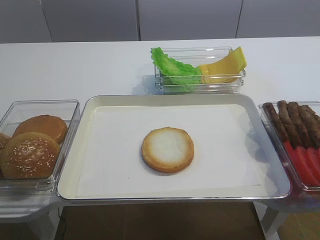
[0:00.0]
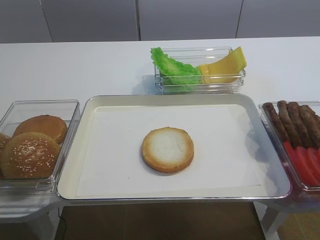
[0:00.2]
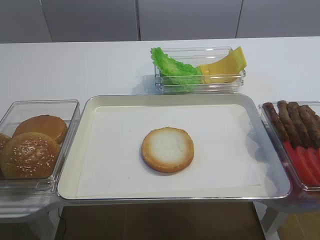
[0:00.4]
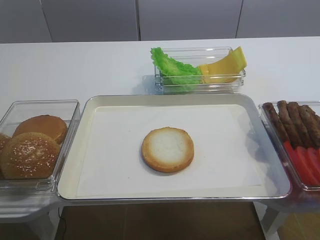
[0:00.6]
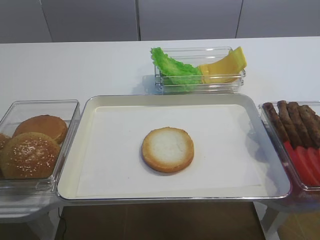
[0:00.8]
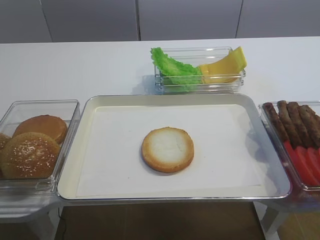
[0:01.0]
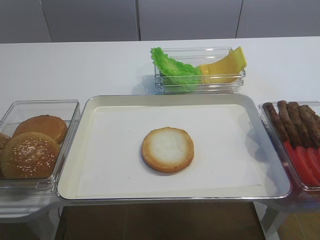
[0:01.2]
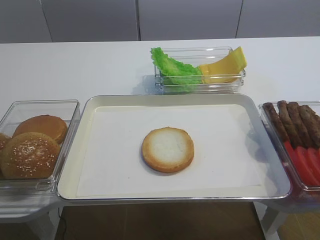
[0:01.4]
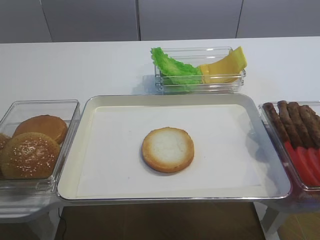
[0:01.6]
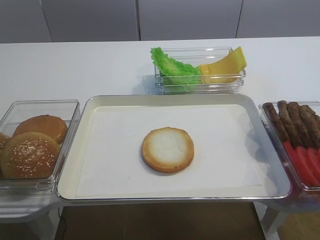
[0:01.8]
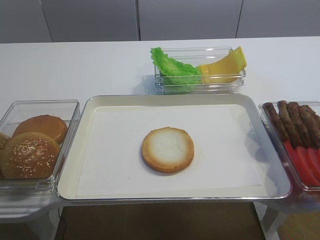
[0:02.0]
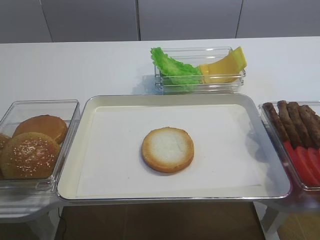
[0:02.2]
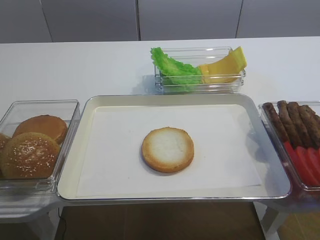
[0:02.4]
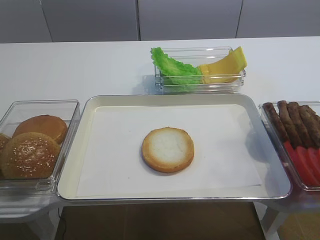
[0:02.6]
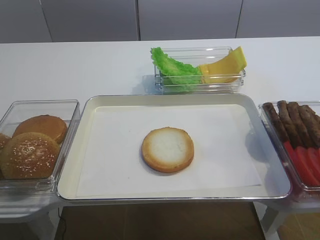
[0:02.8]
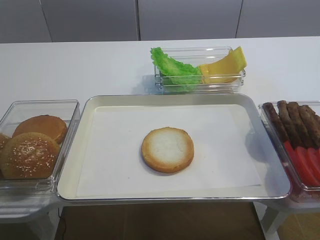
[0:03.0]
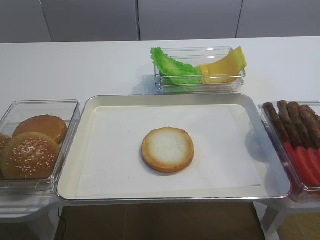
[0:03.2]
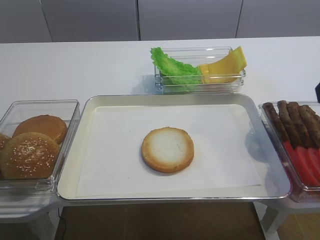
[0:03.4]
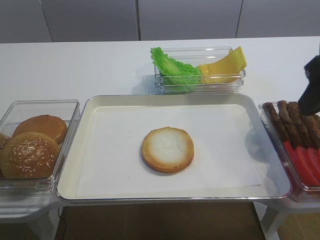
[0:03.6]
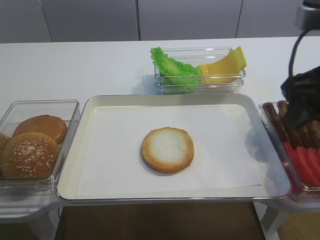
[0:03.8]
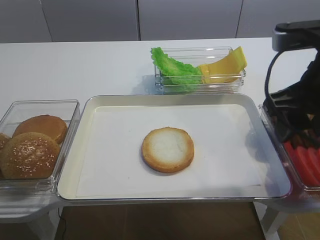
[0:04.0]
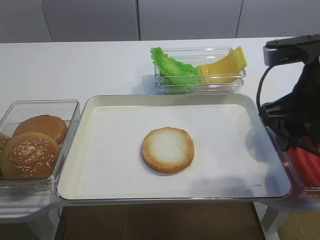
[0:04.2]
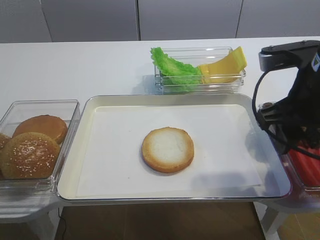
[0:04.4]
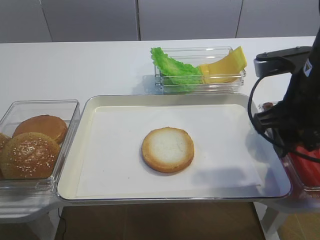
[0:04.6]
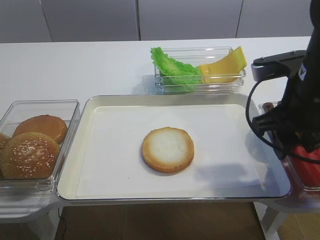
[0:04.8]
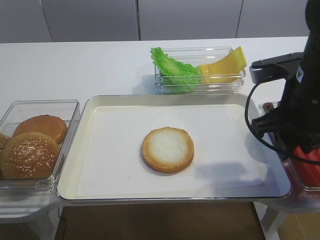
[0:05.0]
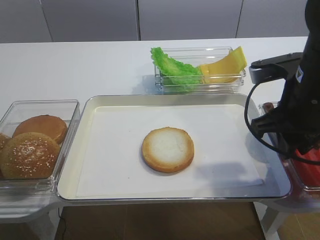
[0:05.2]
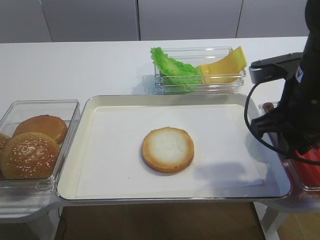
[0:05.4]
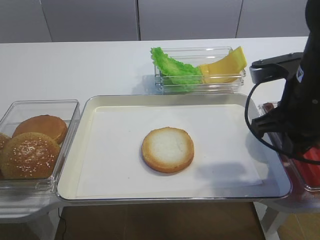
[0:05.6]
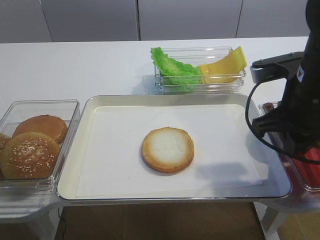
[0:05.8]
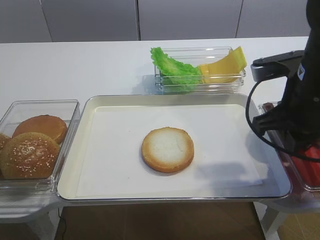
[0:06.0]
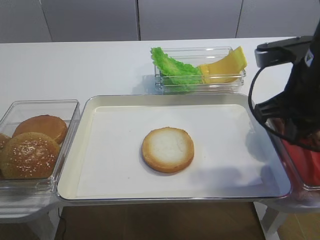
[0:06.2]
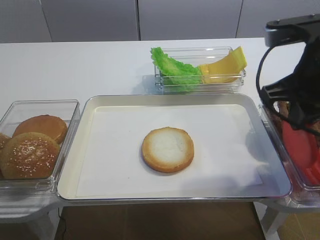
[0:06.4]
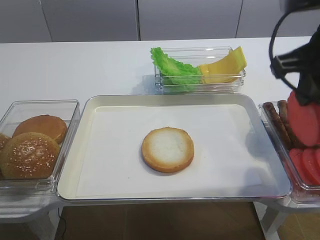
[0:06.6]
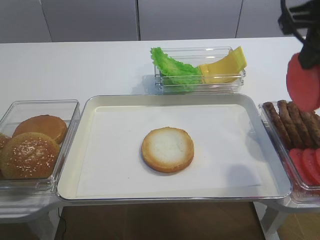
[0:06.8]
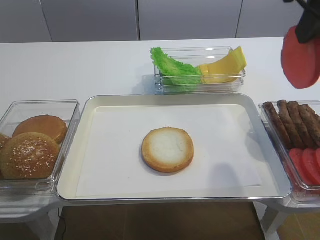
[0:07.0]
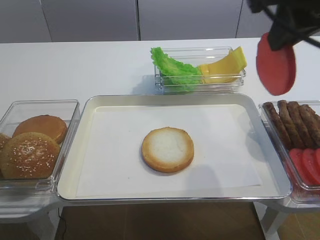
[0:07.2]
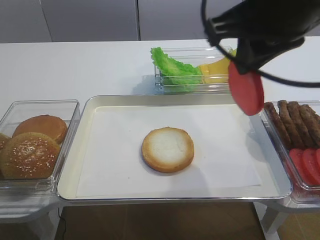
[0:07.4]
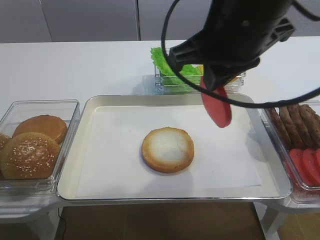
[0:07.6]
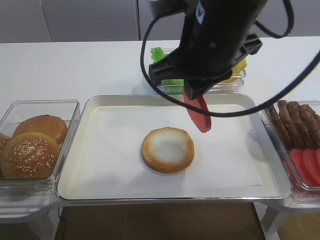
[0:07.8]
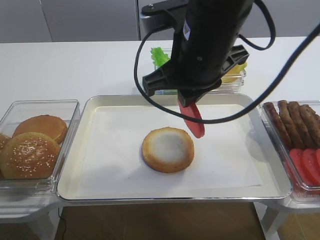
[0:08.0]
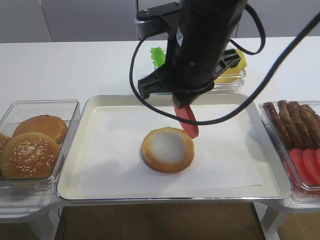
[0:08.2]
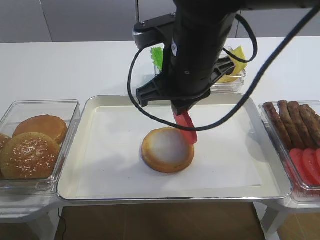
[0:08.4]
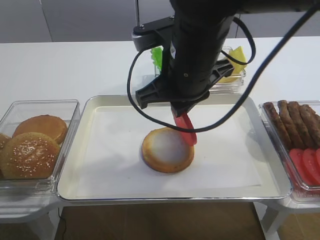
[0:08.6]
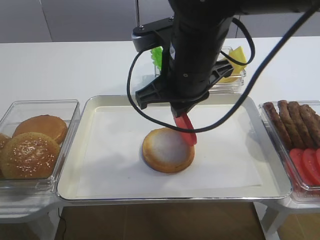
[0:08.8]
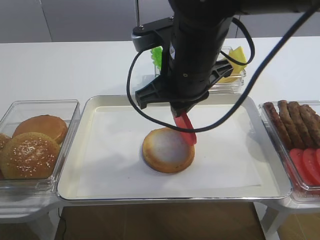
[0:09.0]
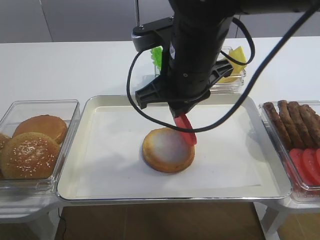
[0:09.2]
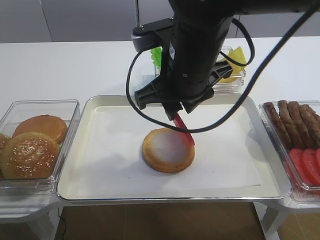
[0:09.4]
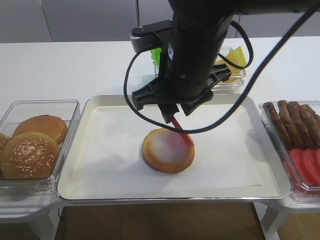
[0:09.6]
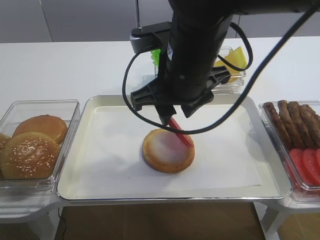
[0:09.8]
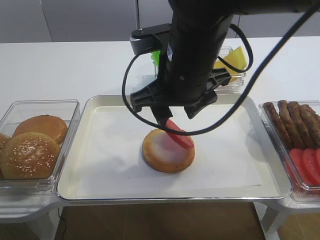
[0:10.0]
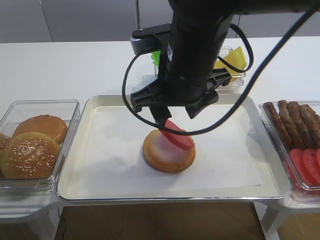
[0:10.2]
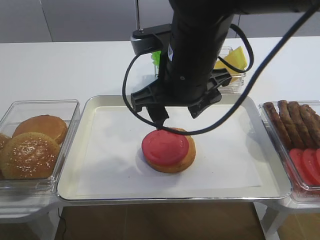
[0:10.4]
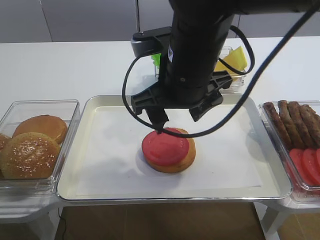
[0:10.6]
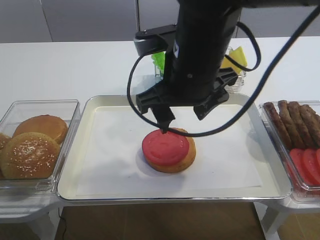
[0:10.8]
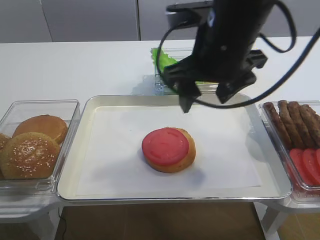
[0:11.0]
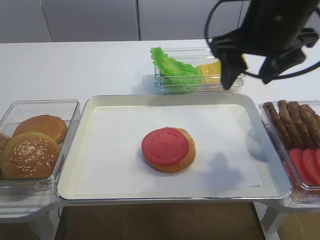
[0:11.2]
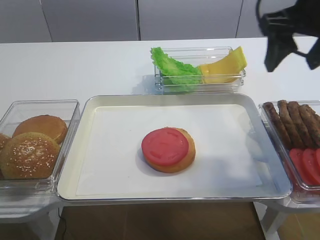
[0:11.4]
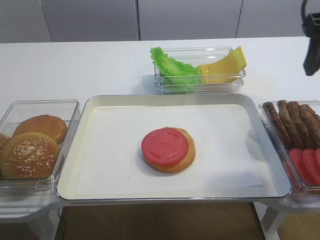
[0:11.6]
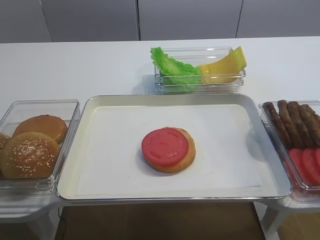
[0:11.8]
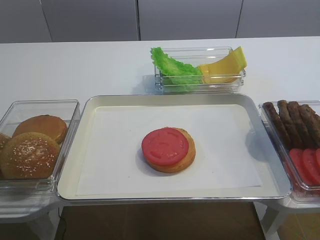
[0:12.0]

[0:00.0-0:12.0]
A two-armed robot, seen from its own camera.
Step, 0:00.0 to 0:06.4: Pick up the tomato slice with the right gripper.
Step, 0:06.6 to 0:10.4: Place the tomato slice on the bread slice with the right gripper.
0:01.6 to 0:03.0: The right gripper heads forward and upward, covering roughly 15 cm.
0:03.0 to 0:04.4: The right gripper is displaced downward, forward and to the left by roughly 15 cm.
0:04.4 to 0:06.0: The right gripper closes up.
0:06.0 to 0:07.6: The right gripper moves upward and to the left, about 15 cm.
0:07.6 to 0:09.0: The right gripper shifts approximately 5 cm downward.
0:09.0 to 0:10.4: The right gripper opens up.
0:10.4 to 0:12.0: The right gripper is displaced to the right, backward and upward by roughly 25 cm.

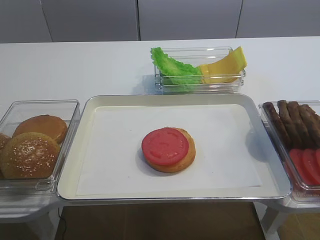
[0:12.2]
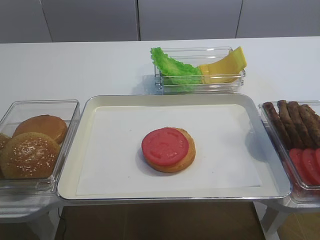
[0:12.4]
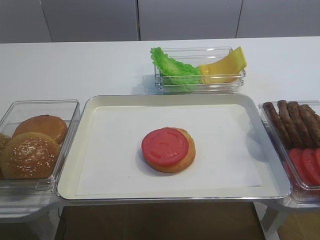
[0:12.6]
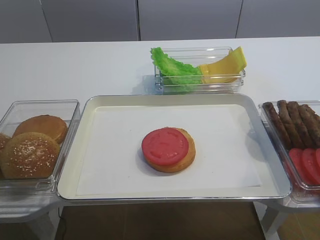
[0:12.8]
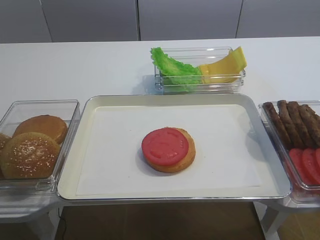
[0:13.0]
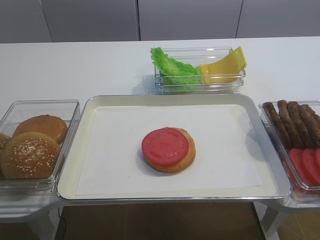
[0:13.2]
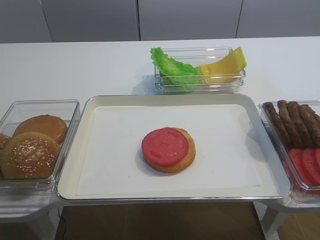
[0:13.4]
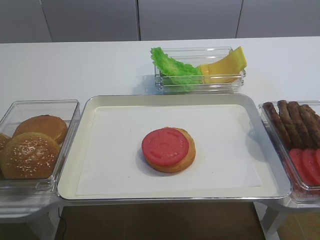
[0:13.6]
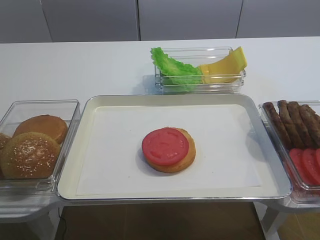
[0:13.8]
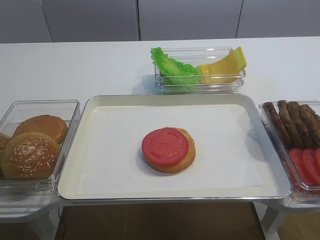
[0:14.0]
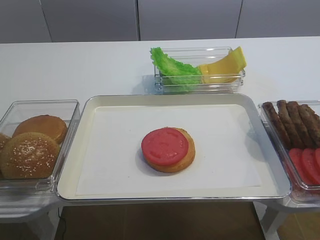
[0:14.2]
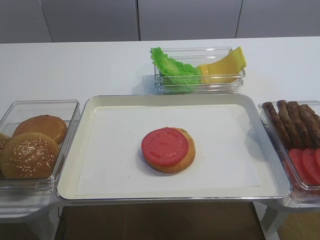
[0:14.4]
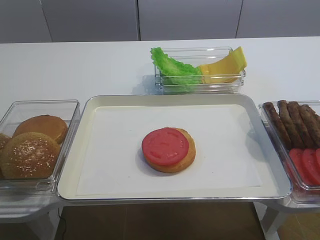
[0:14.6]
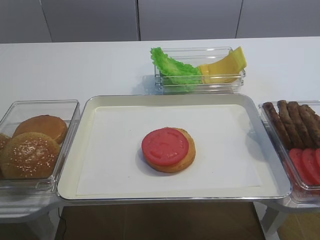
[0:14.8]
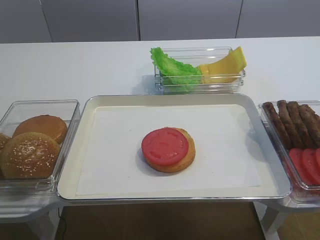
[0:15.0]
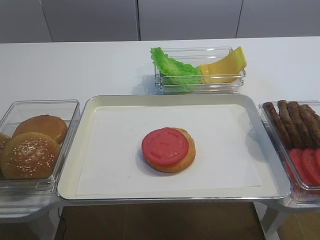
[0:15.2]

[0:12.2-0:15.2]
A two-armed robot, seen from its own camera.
0:13.8 to 0:15.2: Both grippers stay put.

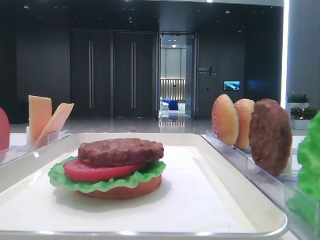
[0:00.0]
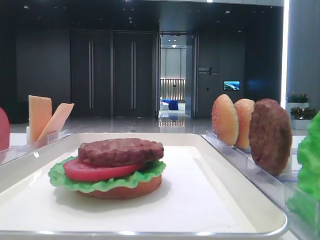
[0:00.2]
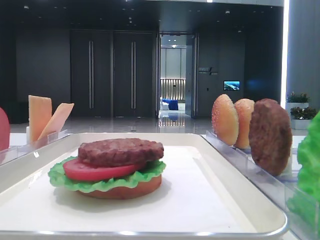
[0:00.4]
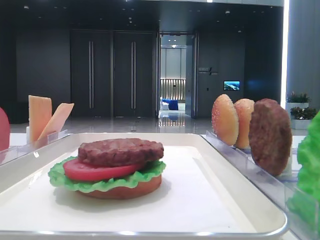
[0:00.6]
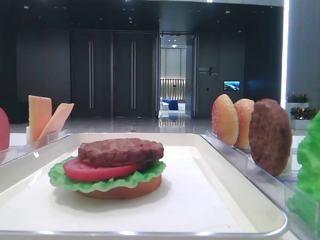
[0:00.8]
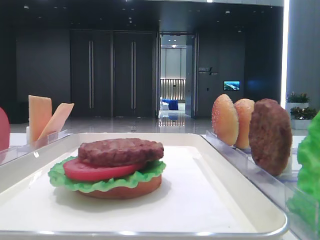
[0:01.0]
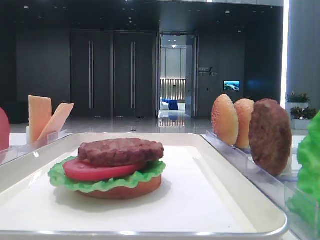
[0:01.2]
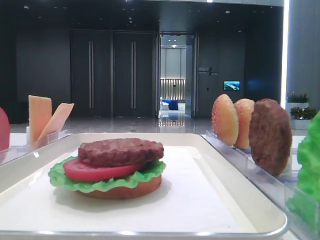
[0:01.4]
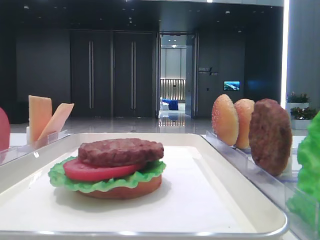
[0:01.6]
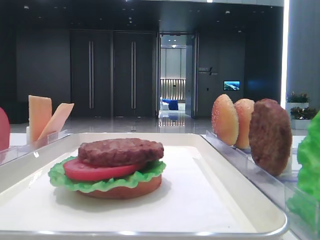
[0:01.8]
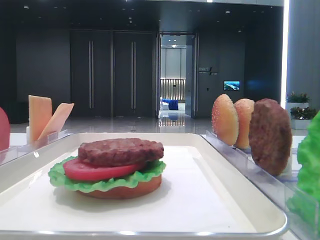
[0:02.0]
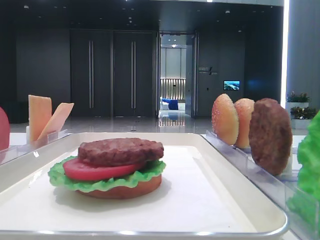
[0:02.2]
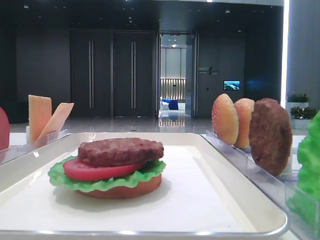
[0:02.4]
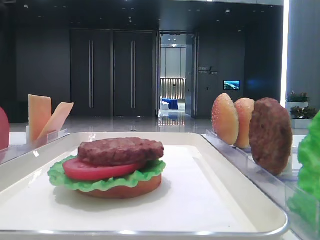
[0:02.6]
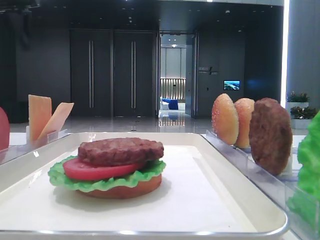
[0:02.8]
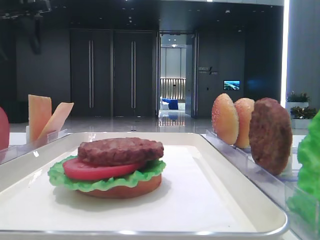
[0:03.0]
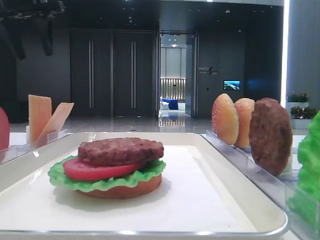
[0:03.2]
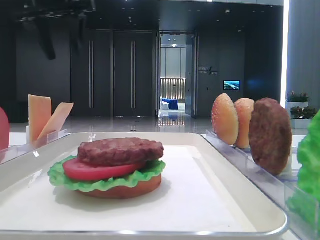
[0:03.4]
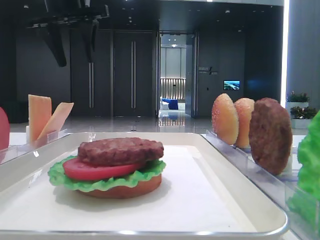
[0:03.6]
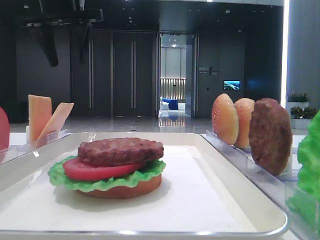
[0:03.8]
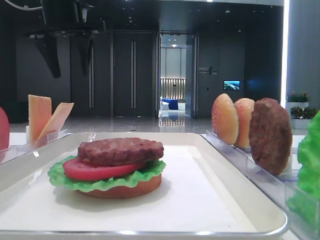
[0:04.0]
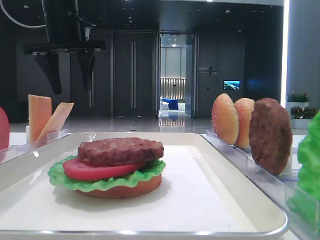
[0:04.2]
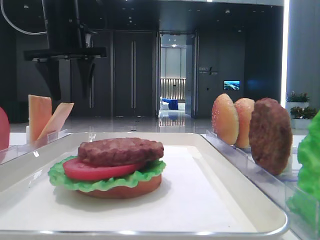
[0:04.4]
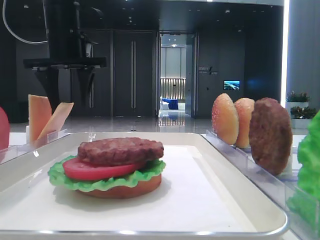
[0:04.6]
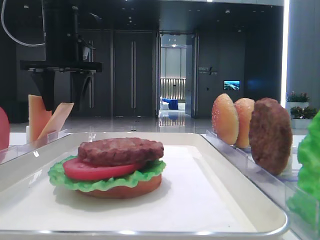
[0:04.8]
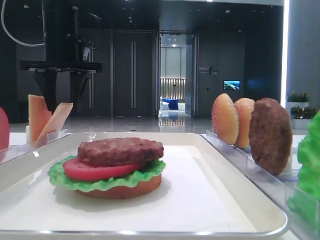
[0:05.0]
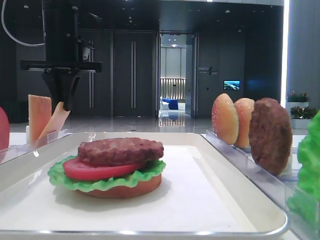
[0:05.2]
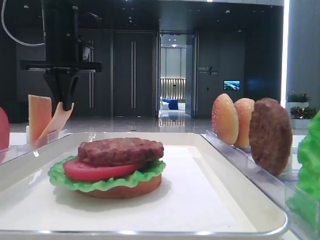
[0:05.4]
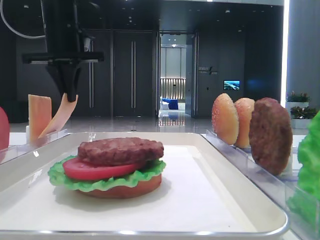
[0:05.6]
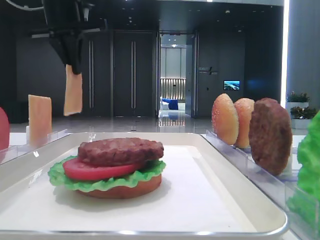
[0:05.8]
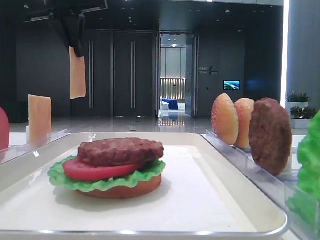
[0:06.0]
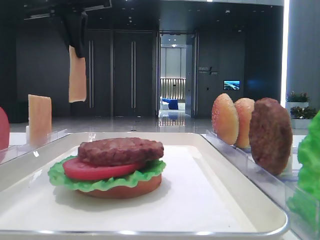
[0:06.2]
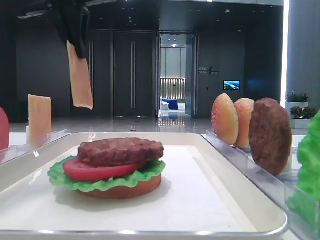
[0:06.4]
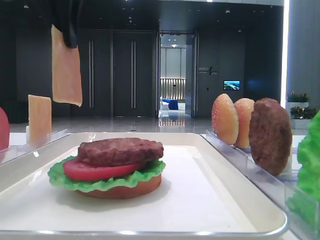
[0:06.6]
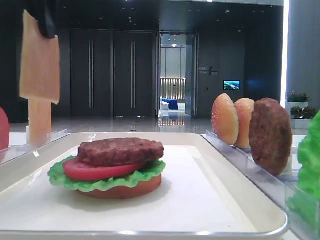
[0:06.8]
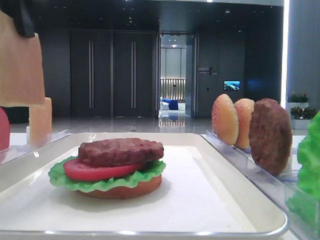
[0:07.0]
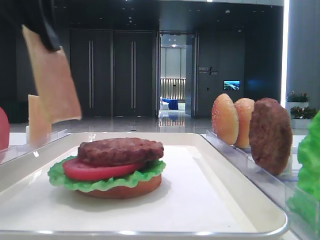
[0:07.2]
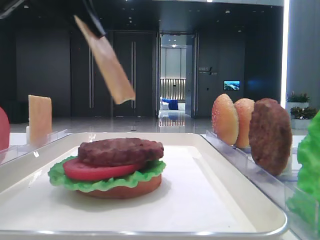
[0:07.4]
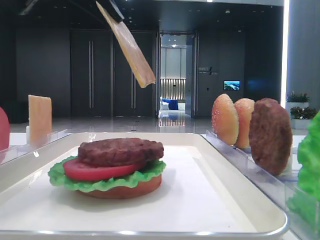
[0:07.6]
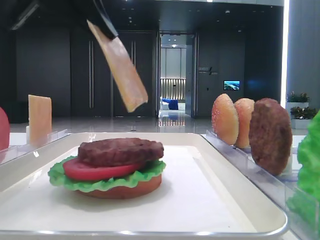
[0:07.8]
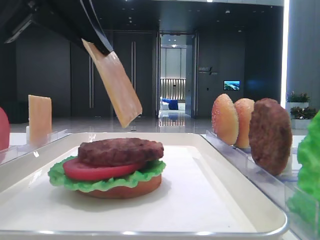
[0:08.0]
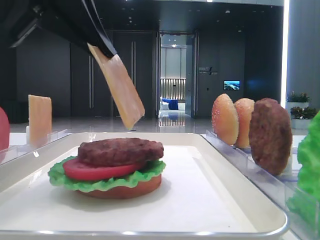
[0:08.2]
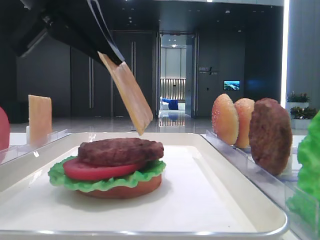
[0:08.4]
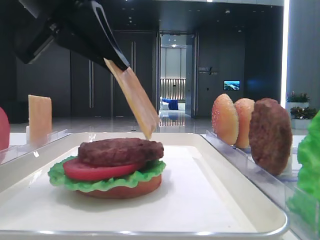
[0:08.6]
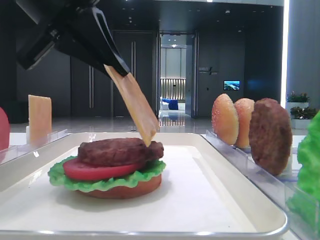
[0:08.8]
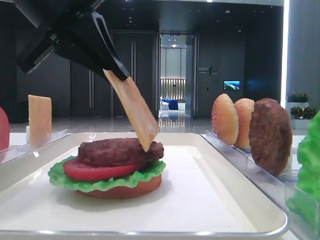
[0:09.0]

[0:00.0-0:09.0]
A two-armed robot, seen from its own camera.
Step, 0:00.0 to 0:05.6: Pick up the cheese slice with the left hand.
0:01.6 to 0:03.0: The left gripper heads forward, covering about 50 cm.
0:03.0 to 0:04.4: The left gripper shifts approximately 15 cm to the right and downward.
0:04.4 to 0:06.0: The left gripper shifts roughly 5 cm upward, and closes its fingers.
0:06.0 to 0:07.6: The left gripper is displaced backward by roughly 20 cm.
0:07.6 to 0:09.0: The left gripper shifts some 5 cm downward.
